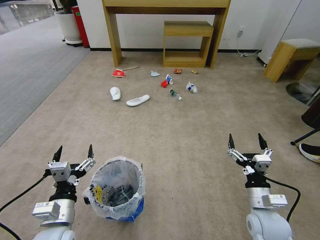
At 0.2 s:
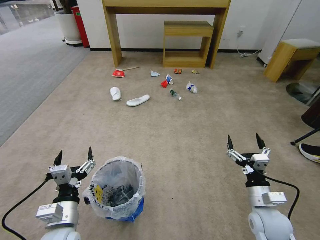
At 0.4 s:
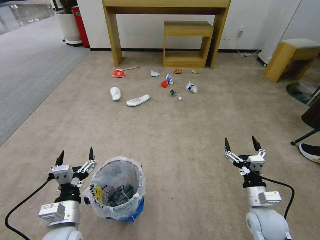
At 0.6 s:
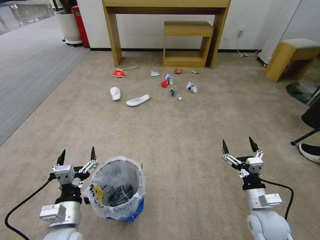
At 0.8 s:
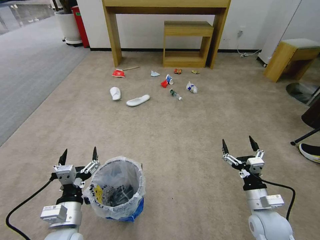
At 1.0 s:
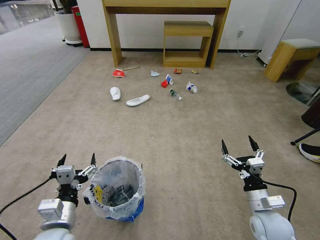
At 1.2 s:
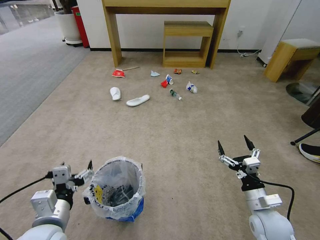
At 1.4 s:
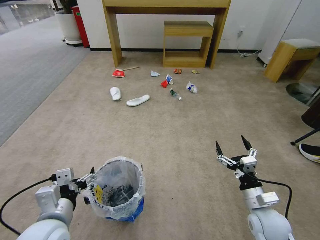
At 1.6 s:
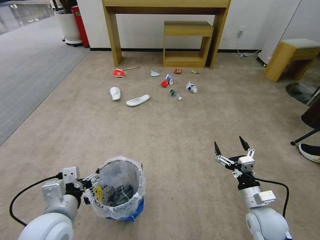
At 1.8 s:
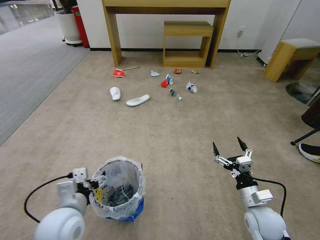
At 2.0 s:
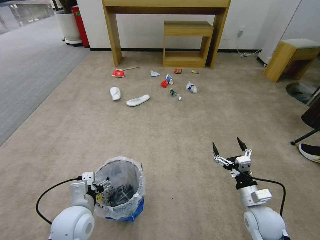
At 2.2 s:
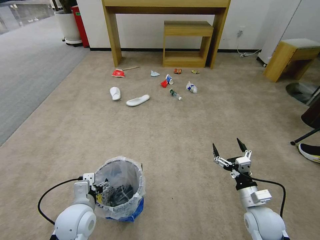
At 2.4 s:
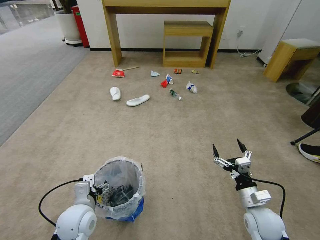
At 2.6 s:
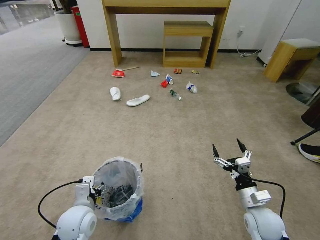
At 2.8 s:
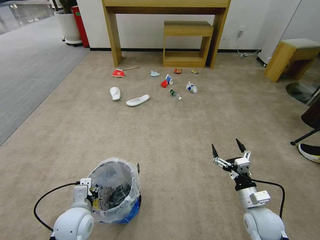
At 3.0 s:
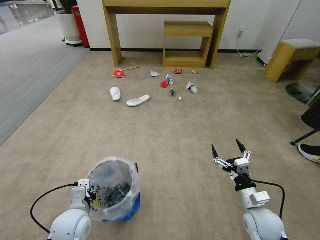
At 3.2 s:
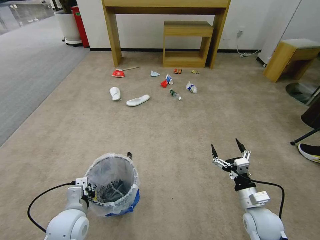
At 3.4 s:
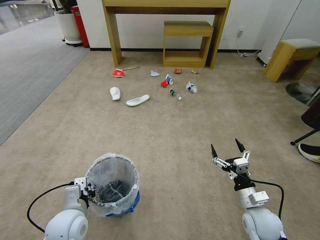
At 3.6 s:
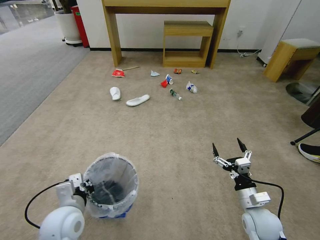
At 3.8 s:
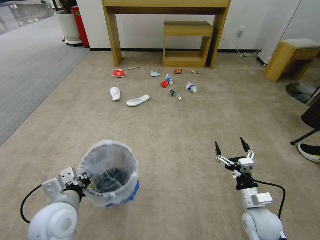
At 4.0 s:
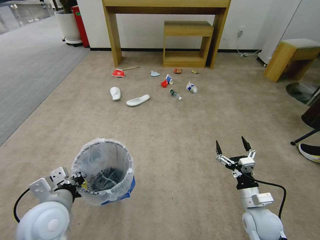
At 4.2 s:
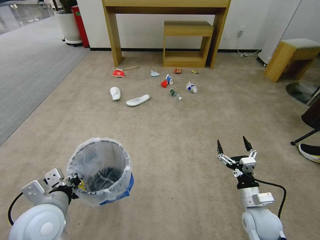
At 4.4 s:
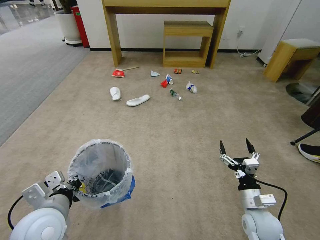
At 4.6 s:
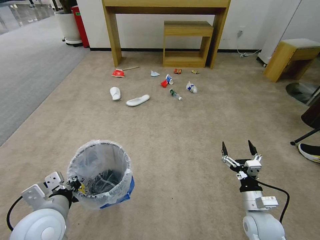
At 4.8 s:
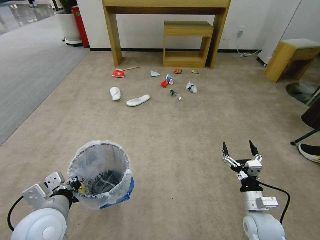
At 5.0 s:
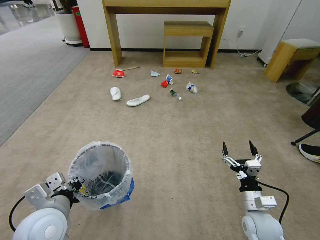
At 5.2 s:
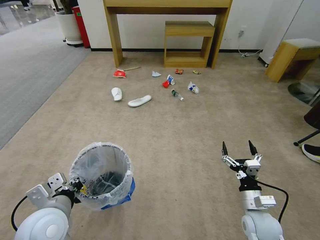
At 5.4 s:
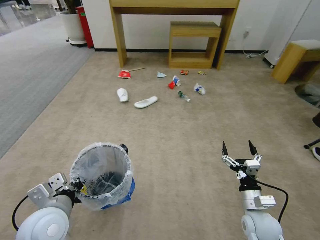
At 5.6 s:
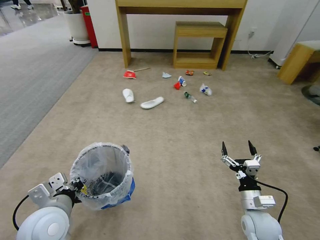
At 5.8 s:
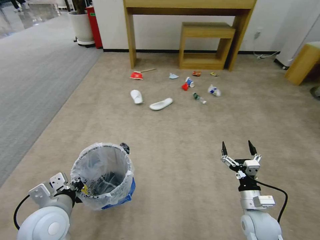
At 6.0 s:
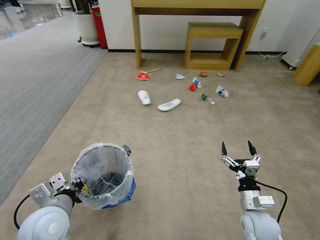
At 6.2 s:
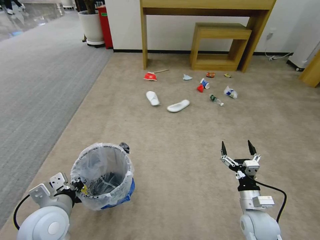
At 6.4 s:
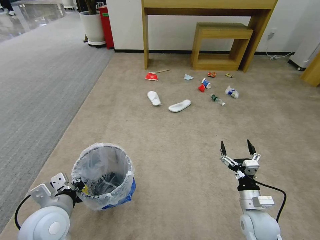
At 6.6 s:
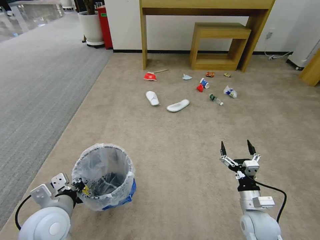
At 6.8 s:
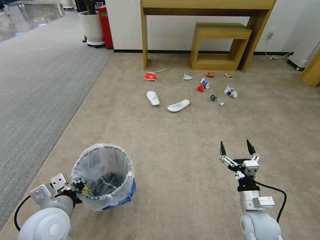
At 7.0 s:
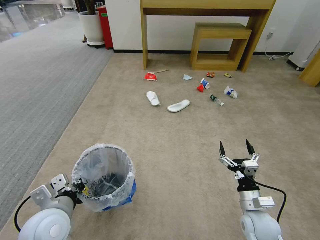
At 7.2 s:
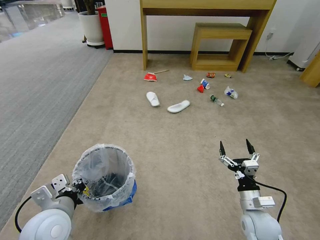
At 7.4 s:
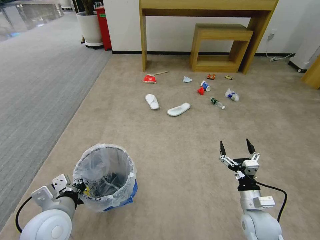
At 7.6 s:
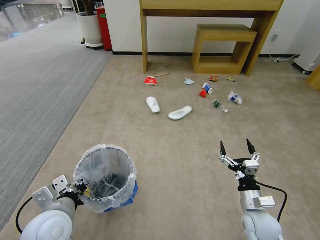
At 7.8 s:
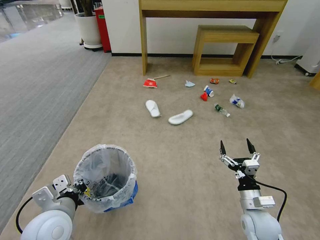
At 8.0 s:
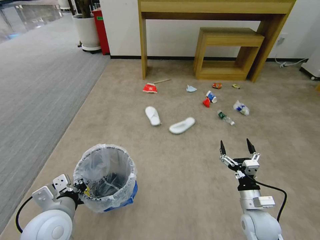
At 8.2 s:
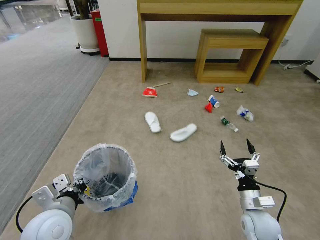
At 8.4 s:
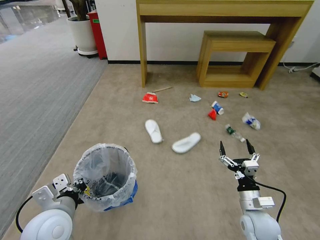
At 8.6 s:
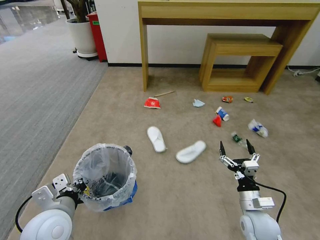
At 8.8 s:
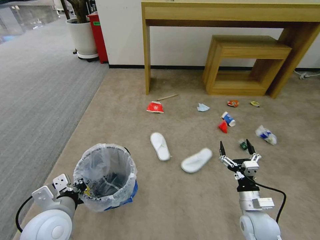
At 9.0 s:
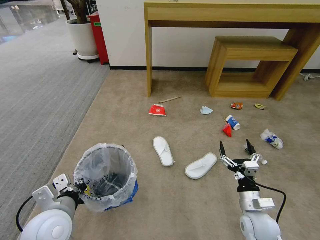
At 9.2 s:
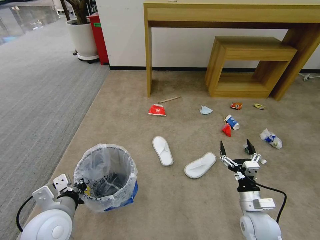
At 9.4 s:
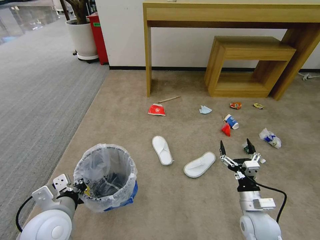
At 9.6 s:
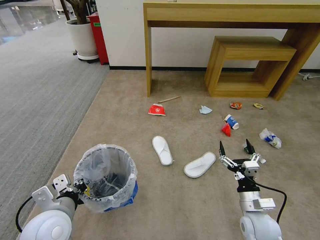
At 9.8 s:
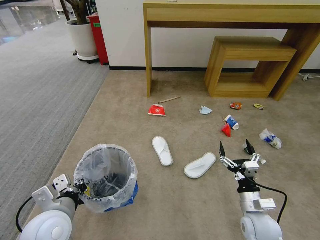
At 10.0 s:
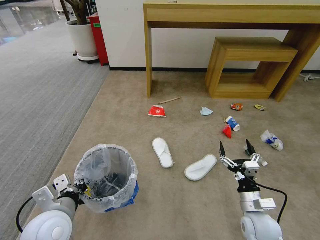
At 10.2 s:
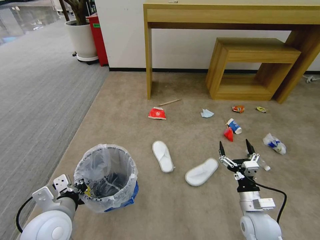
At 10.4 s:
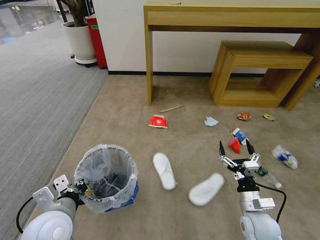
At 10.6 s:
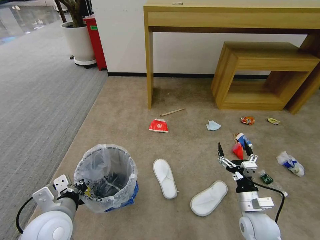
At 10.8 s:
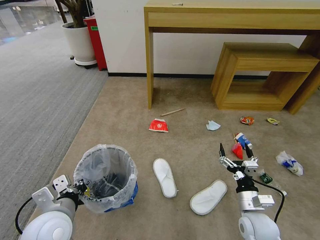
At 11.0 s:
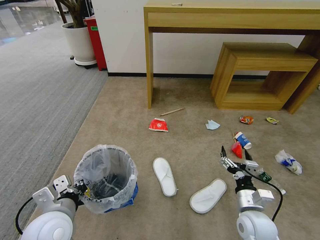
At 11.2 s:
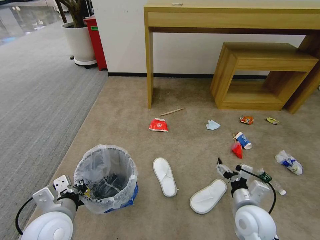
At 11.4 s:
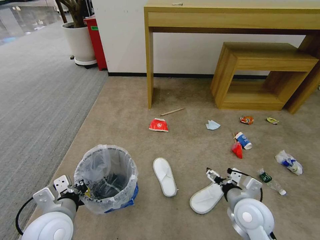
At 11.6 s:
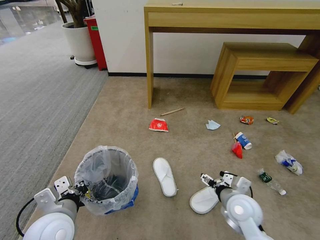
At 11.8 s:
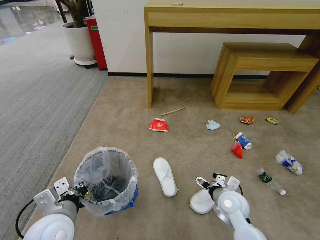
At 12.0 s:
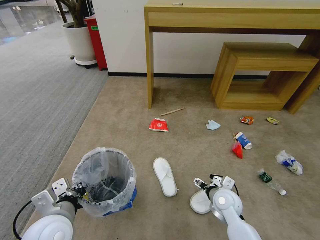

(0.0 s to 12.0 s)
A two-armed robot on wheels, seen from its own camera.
Task of the whole recording: Pick up the trash bin and place the garbage on the floor into it.
1.6 s - 3.0 s: The left gripper shifts roughly 10 cm downward, and closes.
3.0 s - 4.4 s: The left gripper travels upward by some 10 cm.
6.0 s - 7.6 s: The two grippers keep their place.
10.4 s - 12.0 s: The right gripper shifts roughly 10 cm forward and to the left, and travels upward and back again, some 5 cm each way.

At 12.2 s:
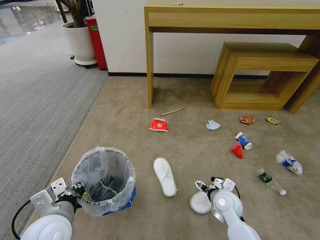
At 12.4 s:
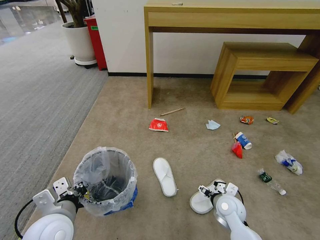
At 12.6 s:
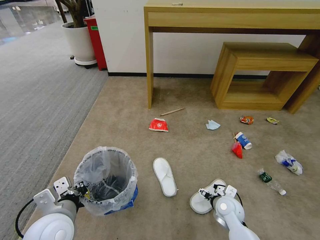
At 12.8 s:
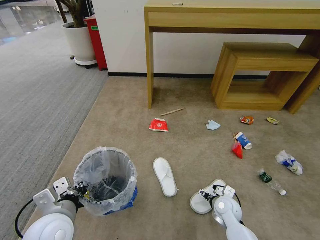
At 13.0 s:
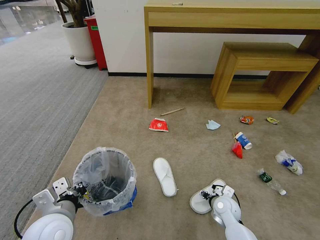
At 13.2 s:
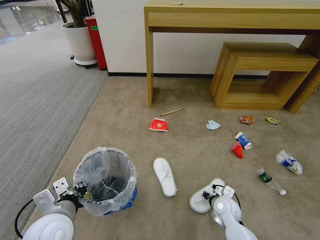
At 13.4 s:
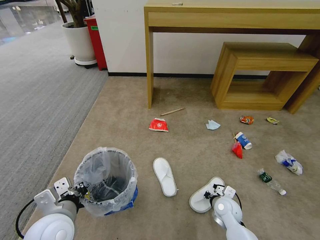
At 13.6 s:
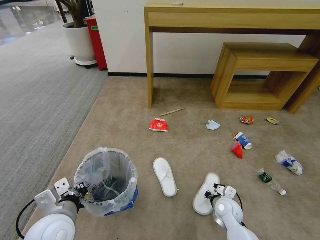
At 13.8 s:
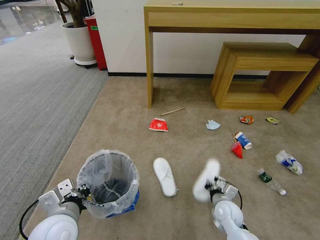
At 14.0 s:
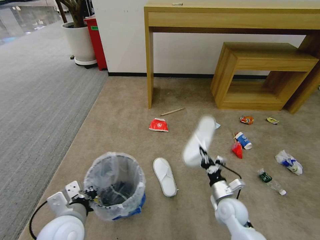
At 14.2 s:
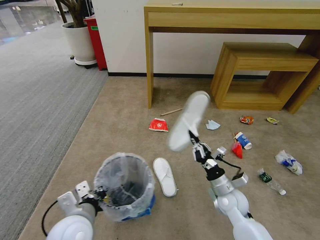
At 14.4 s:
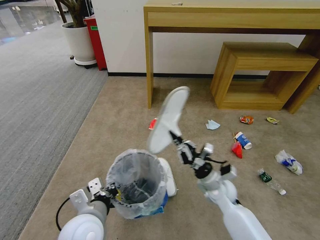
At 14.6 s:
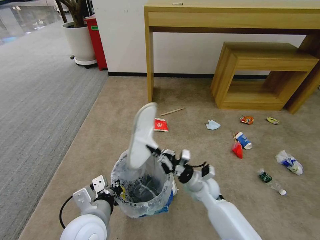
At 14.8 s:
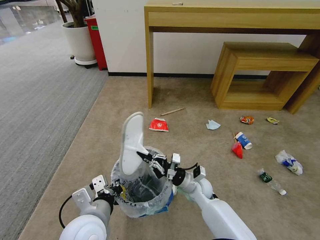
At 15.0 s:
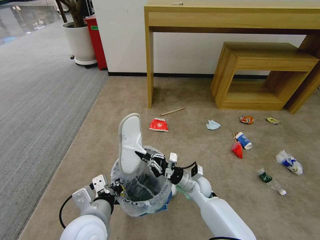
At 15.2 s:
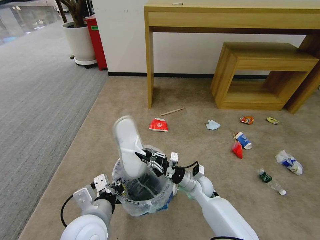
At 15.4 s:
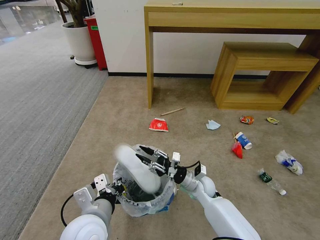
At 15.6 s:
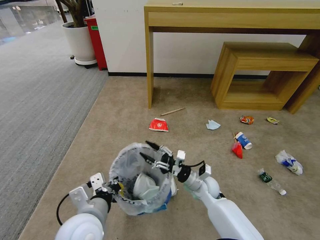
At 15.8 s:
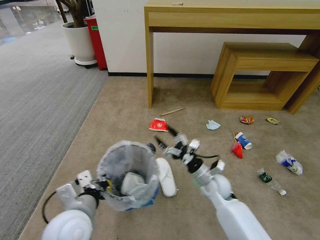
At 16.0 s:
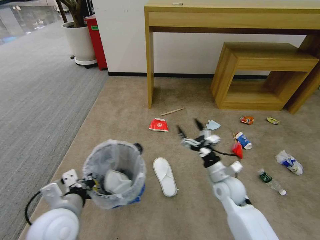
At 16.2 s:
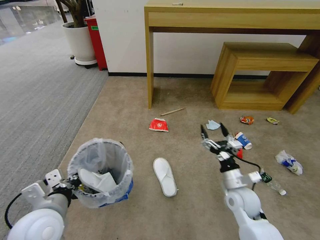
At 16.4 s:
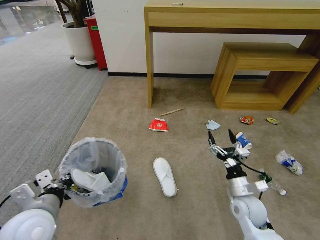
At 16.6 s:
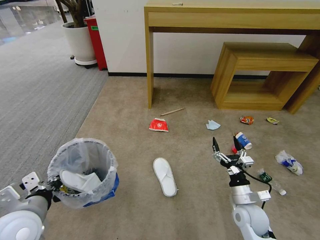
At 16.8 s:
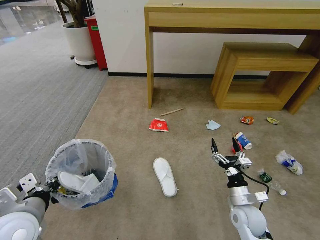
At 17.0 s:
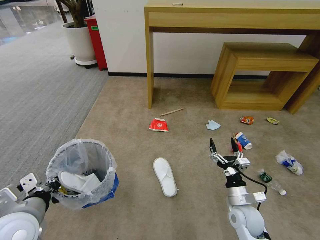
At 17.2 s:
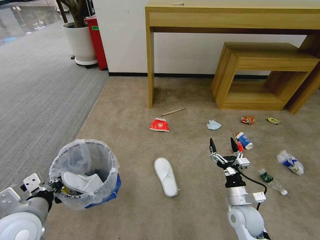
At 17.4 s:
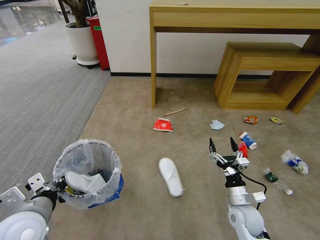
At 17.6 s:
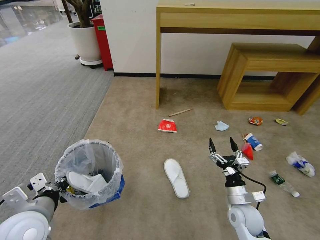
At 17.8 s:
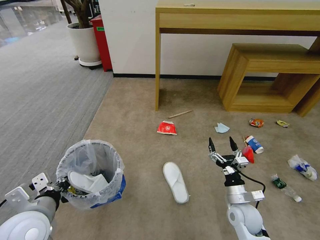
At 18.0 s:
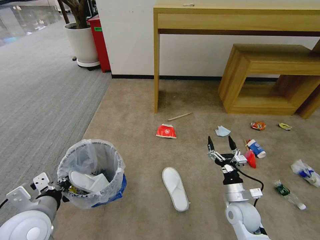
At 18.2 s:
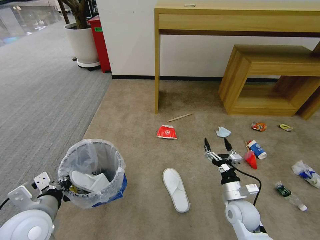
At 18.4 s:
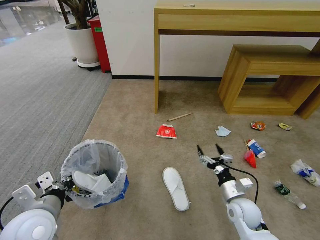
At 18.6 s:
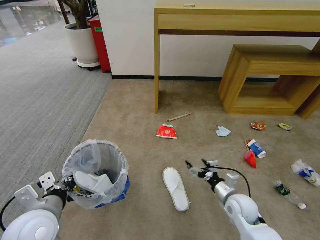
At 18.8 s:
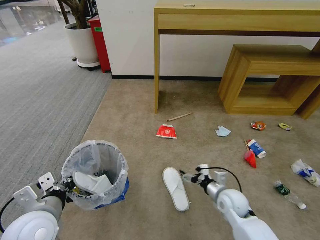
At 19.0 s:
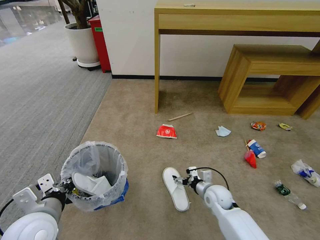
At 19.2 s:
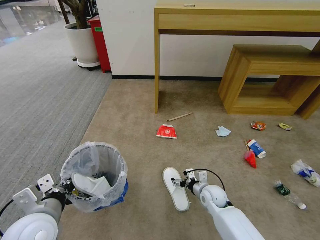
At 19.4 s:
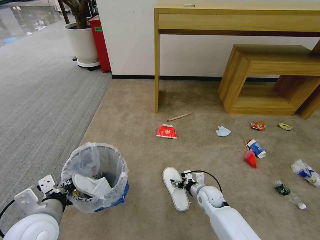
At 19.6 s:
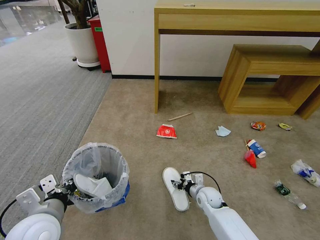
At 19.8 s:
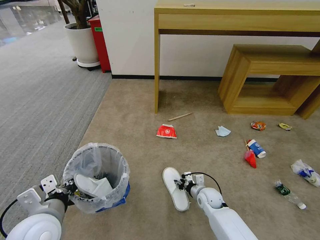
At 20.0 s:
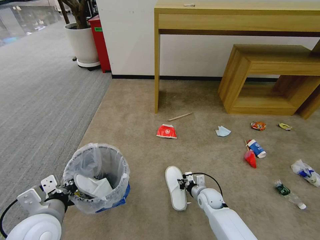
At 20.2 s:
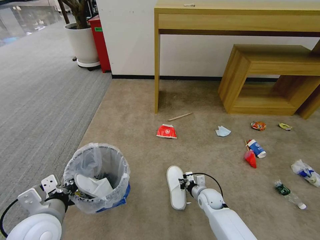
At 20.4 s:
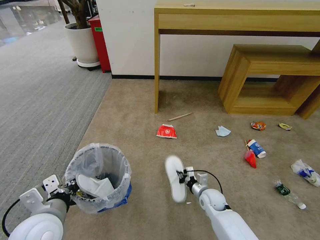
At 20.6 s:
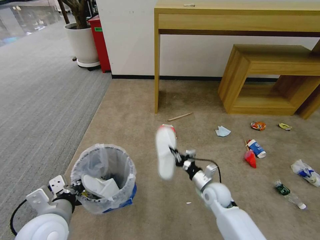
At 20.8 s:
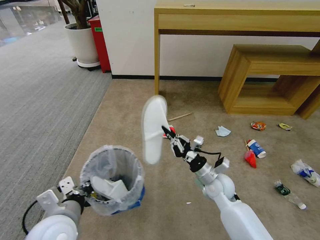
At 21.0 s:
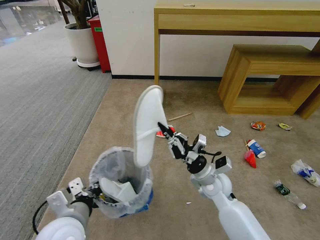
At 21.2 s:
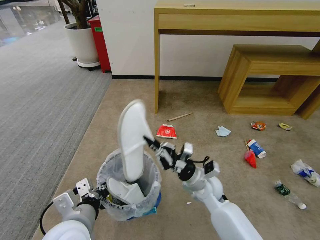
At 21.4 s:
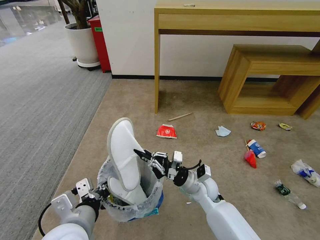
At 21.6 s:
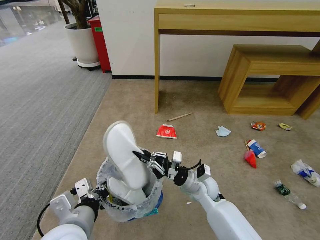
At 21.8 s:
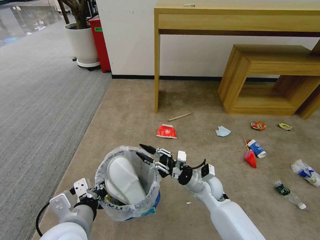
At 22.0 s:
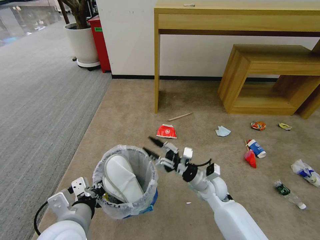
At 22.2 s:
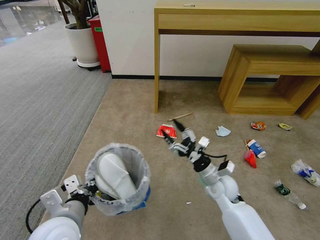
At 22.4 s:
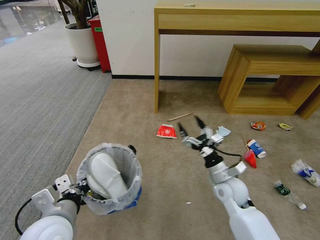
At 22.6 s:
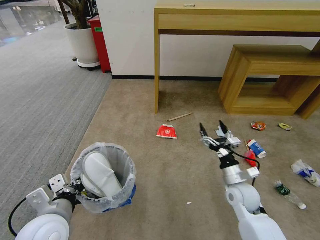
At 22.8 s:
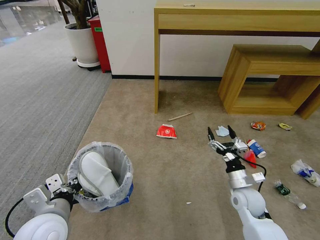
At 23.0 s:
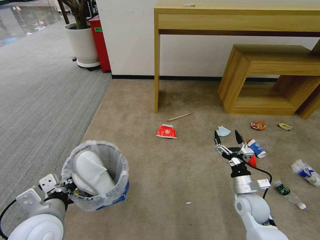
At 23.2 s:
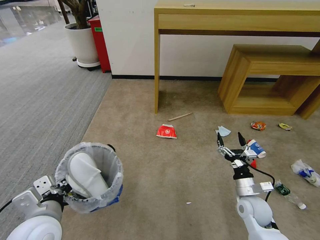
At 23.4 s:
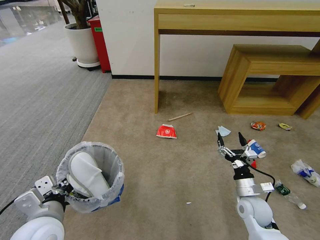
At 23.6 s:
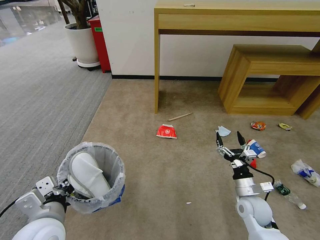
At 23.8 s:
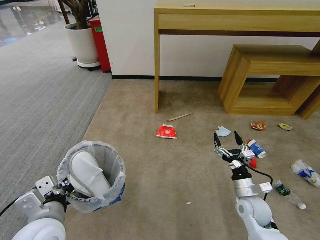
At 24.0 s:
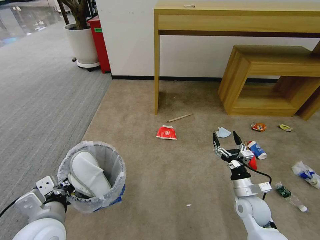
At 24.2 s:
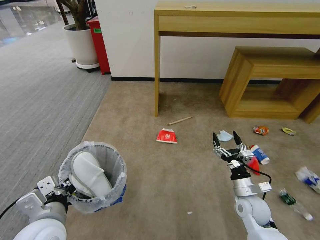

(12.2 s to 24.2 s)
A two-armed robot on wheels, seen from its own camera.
Task of the whole recording: Pick up the trash bin and place the garbage on the floor into it.
12.2 s - 13.8 s: The right gripper shifts approximately 5 cm downward, and closes its fingers.
13.8 s - 15.2 s: The right gripper travels to the left and forward by some 15 cm. The left gripper heads to the right, covering about 10 cm.
15.2 s - 16.6 s: The right gripper goes some 15 cm to the right and backward, and opens up. Meanwhile the left gripper is displaced to the left by about 15 cm.
18.2 s - 19.8 s: The right gripper shifts about 15 cm downward, forward and to the left, and closes its fingers.
19.8 s - 21.2 s: The right gripper shifts about 15 cm upward. The left gripper is displaced to the right by roughly 5 cm.
21.2 s - 22.6 s: The right gripper moves to the right, approximately 10 cm, and opens up, while the left gripper is displaced to the left by about 5 cm.
22.6 s - 24.2 s: The right gripper moves approximately 5 cm.
